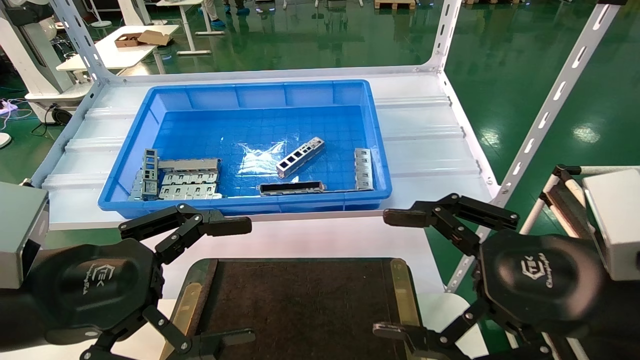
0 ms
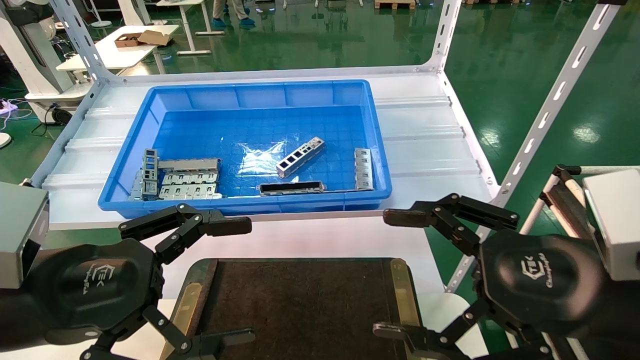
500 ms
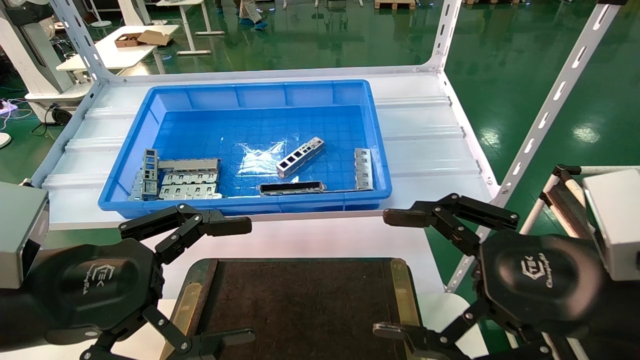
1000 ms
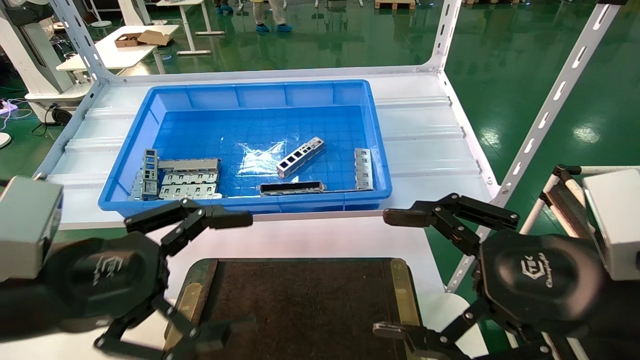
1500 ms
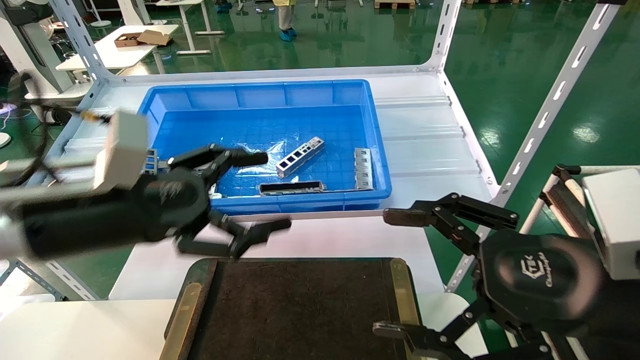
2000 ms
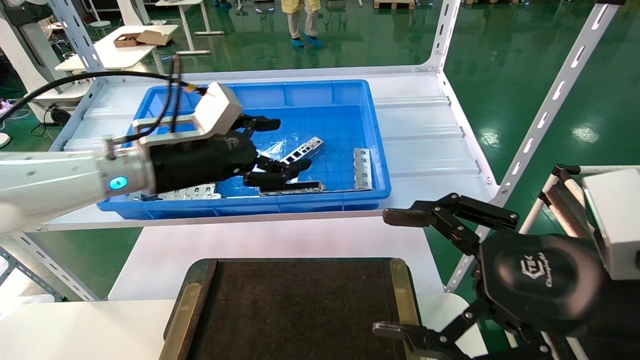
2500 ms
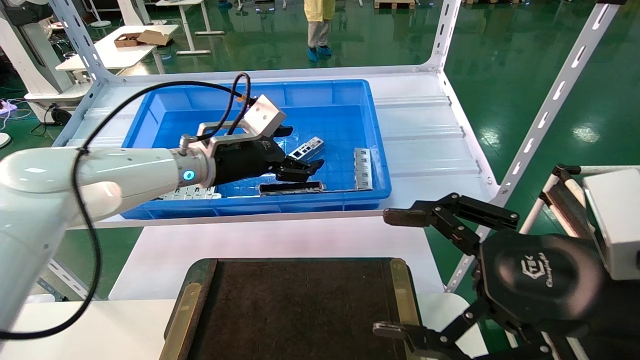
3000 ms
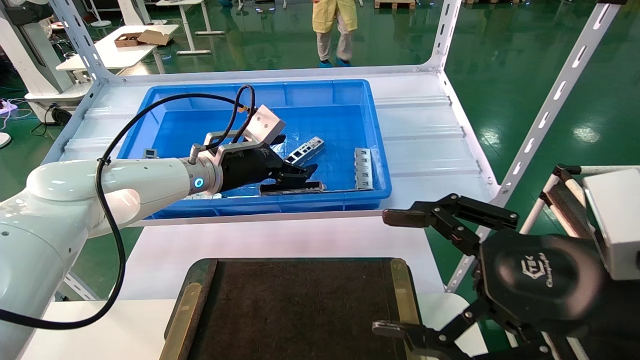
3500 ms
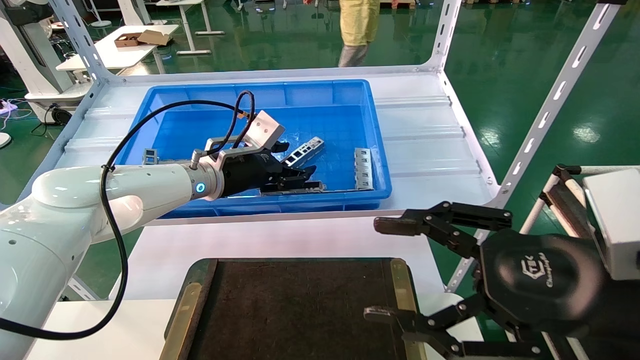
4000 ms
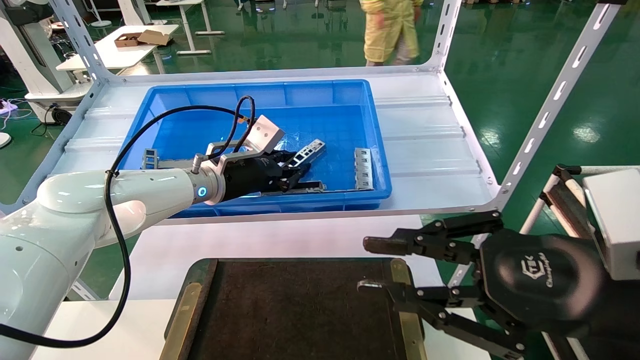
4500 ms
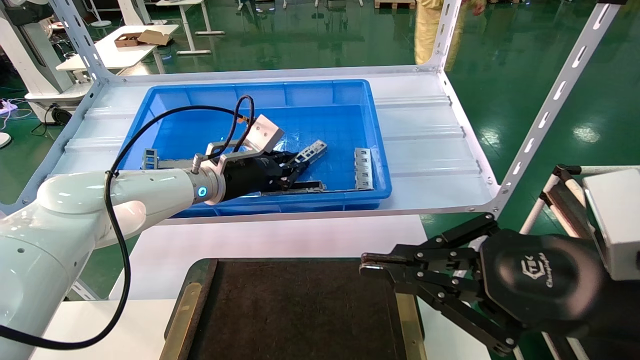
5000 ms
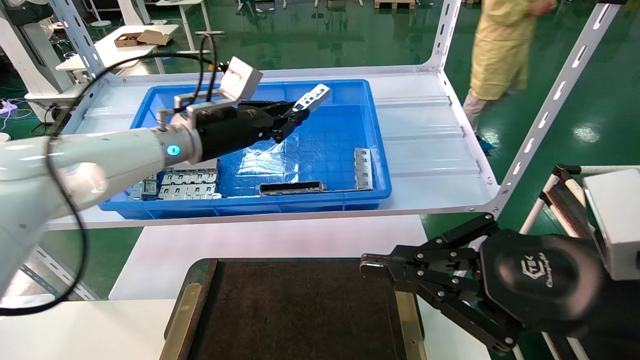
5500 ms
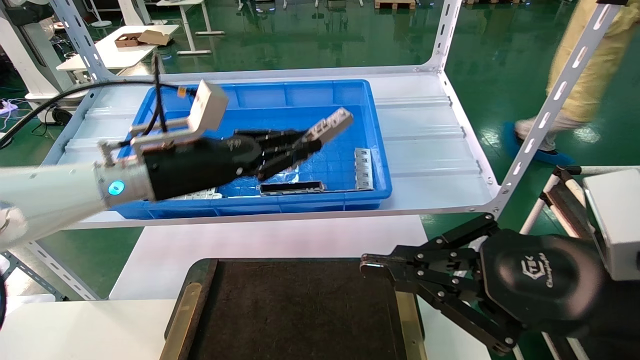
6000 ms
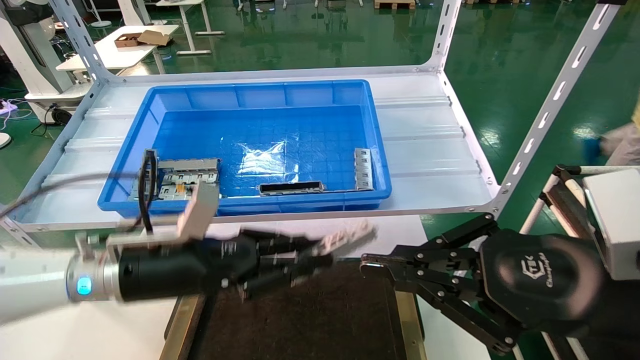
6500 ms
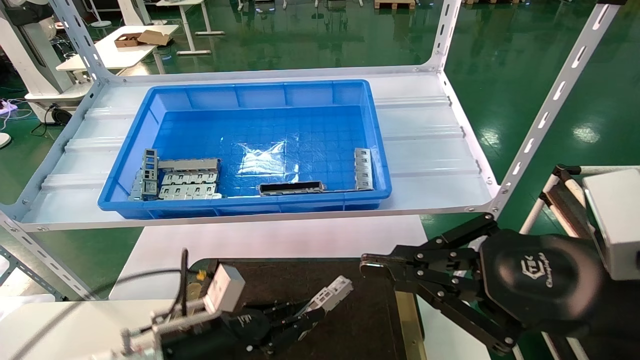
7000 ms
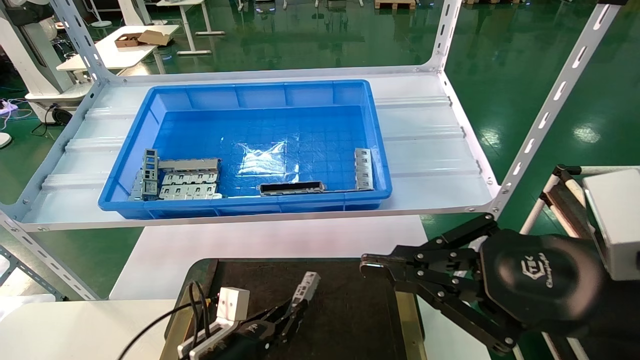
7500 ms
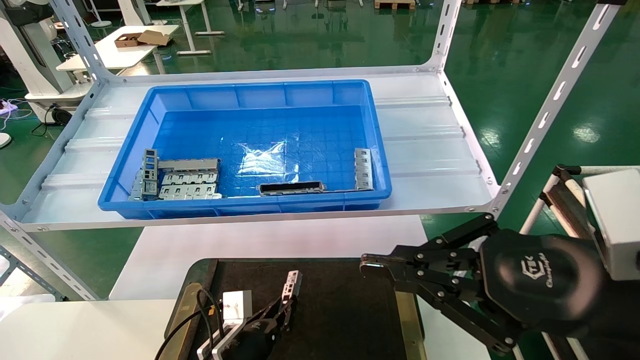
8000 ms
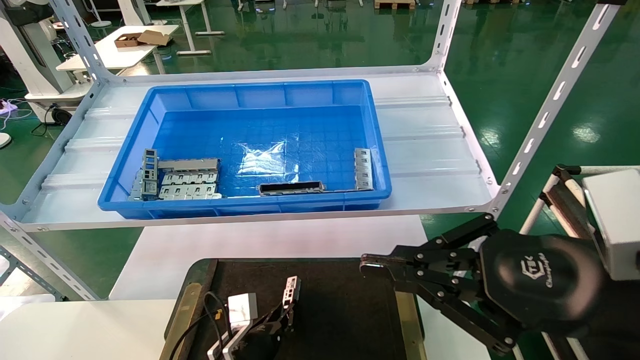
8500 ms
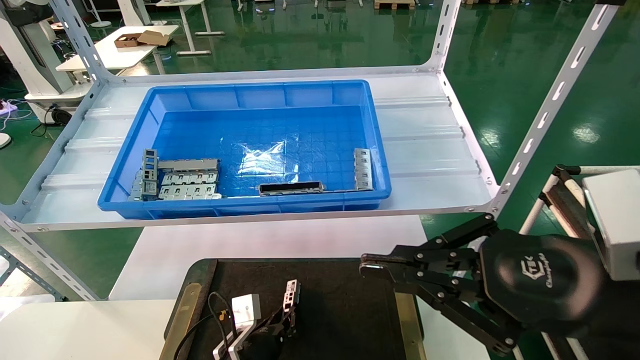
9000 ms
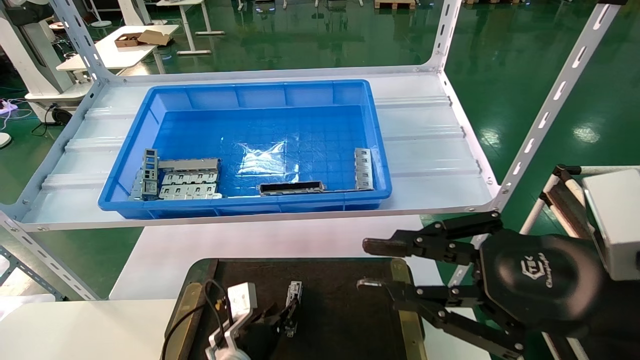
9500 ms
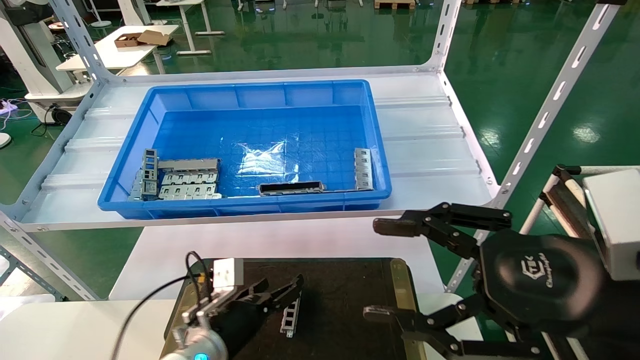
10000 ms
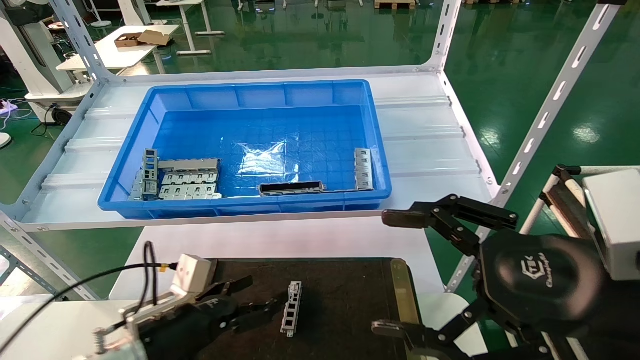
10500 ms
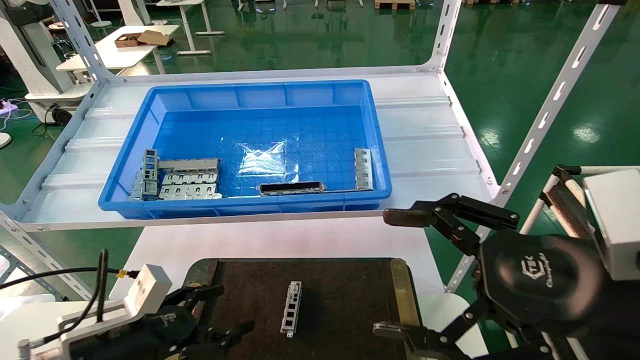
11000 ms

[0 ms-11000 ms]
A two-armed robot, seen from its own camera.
Task of the whole recording: Grasp the part with one hand and place it on the black container.
Step, 2000 ms to 5000 ms: Pick up the front USB bracket from the feeding area.
Step, 5500 ms to 9500 ms: Place the front USB bracket into the box.
0 ms to 2000 ms: The left gripper travels forward by roughly 10 cm.
2000 ms to 3500 ms: The left gripper goes about 20 cm forward.
3500 ms to 5500 ms: The left gripper ends up roughly 5 cm from where it was, and closes up. The right gripper closes its fingers.
5500 ms to 7500 ms: The left gripper travels downward by approximately 35 cm.
7500 ms to 9000 ms: The left gripper goes some 5 cm downward.
9000 ms to 11000 ms: The left gripper heads to the left, upward and backward, covering approximately 25 cm, and opens its fingers. The right gripper opens.
